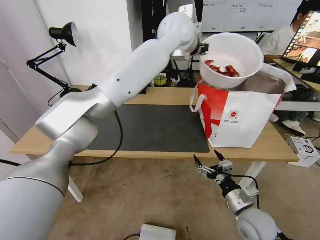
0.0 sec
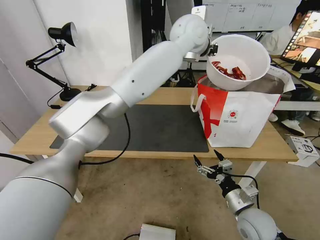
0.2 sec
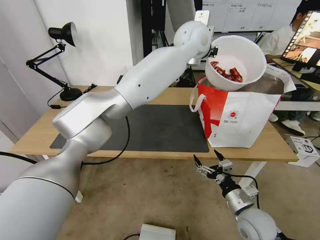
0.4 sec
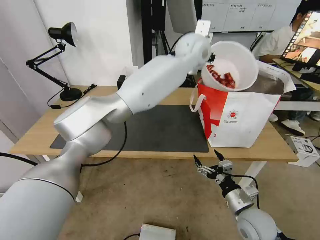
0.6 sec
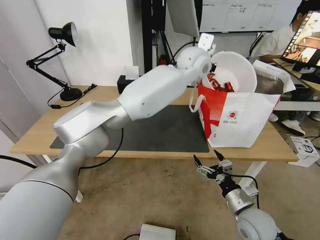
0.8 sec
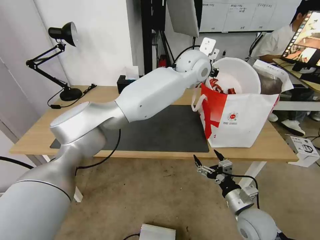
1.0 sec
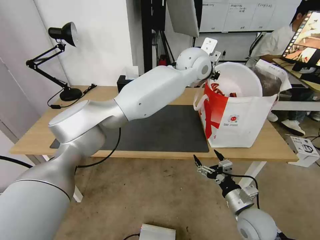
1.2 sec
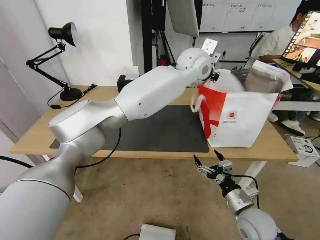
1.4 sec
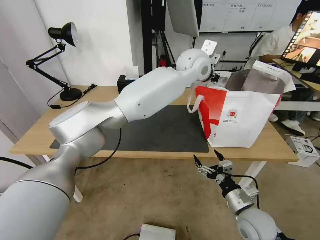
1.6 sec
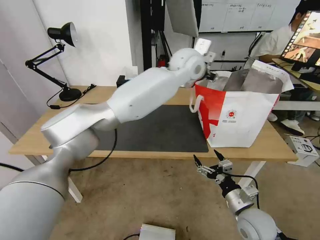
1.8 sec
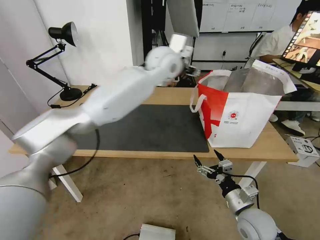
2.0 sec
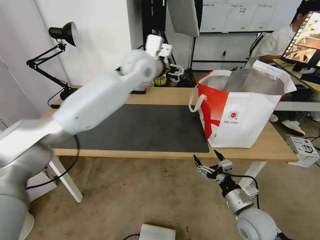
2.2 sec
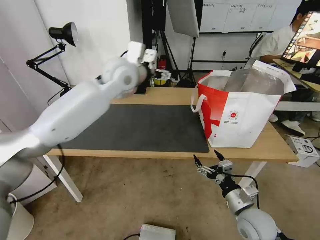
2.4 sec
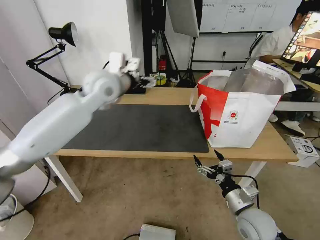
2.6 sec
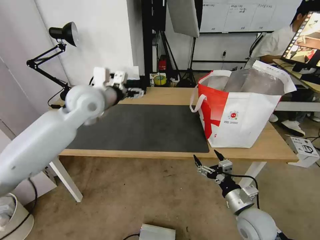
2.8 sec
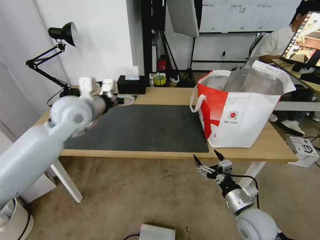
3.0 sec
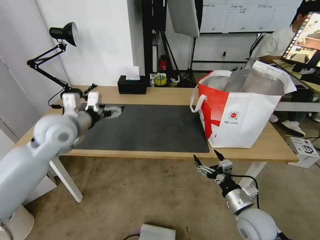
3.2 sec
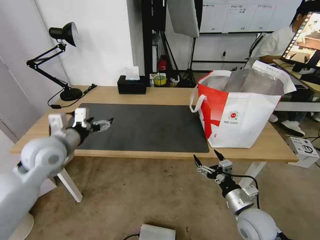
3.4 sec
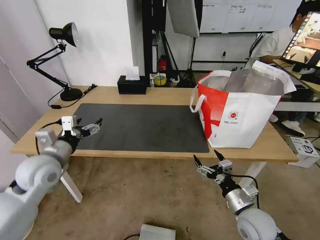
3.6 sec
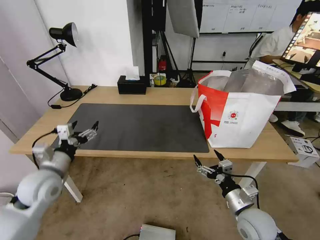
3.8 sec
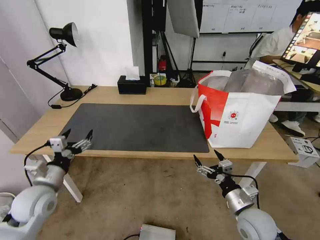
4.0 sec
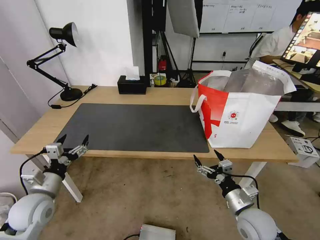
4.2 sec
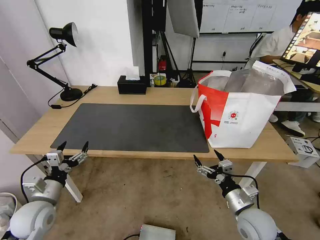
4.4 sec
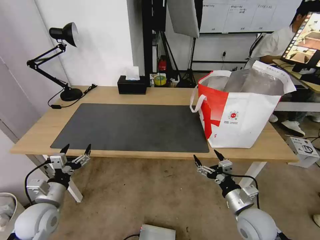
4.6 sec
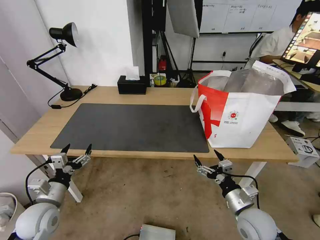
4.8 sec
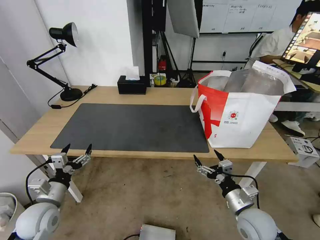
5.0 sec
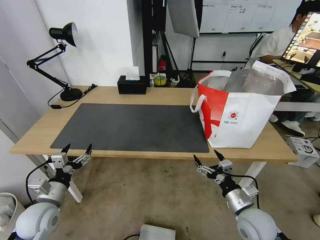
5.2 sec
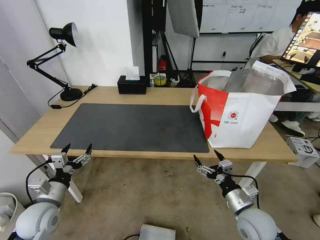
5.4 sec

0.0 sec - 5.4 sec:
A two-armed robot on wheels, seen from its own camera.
Task of the whole recording: Pick up the trash from the table and place it into the takeout bag.
0.0 sec - 1.4 sec: The left gripper shifts about 10 cm downward.
1.4 sec - 2.8 sec: The left gripper shifts about 25 cm to the left, and opens its fingers.
2.8 sec - 4.0 sec: The left gripper is displaced downward, backward and to the left by roughly 35 cm.
4.0 sec - 5.4 sec: The left gripper moves downward, some 5 cm.

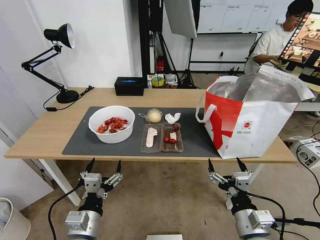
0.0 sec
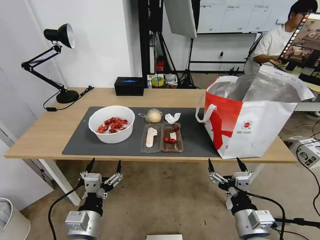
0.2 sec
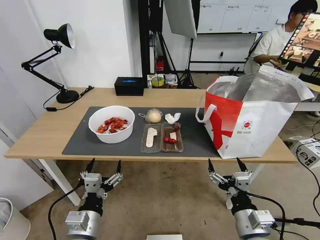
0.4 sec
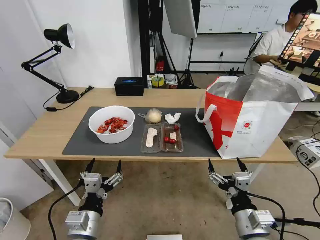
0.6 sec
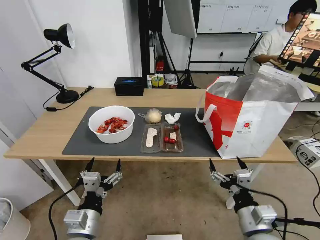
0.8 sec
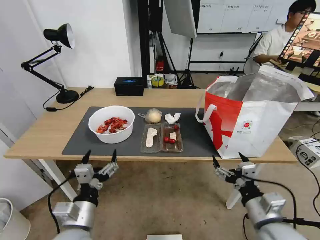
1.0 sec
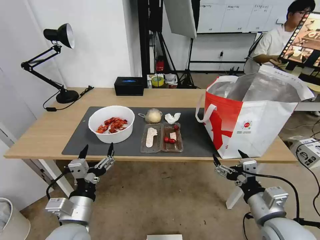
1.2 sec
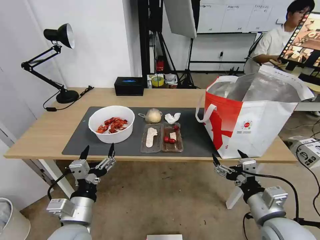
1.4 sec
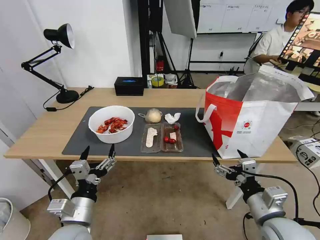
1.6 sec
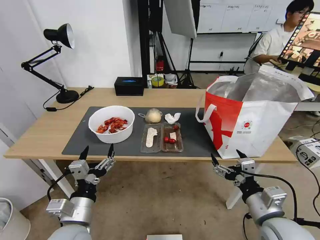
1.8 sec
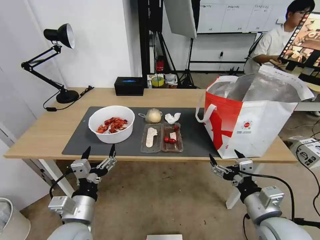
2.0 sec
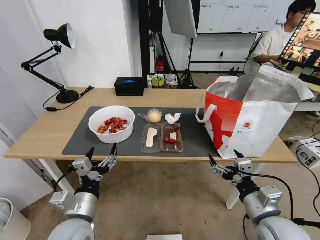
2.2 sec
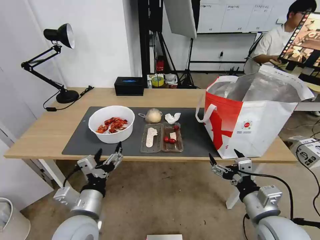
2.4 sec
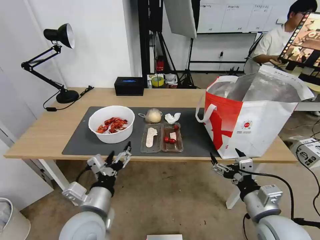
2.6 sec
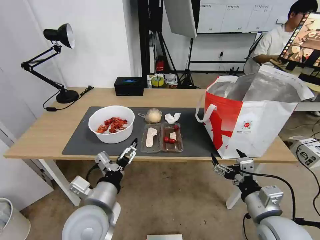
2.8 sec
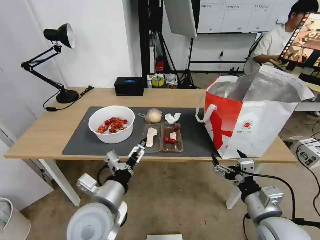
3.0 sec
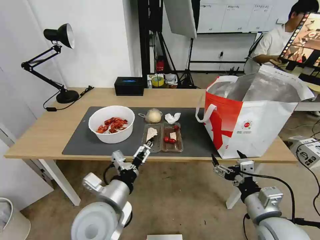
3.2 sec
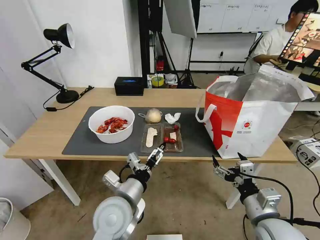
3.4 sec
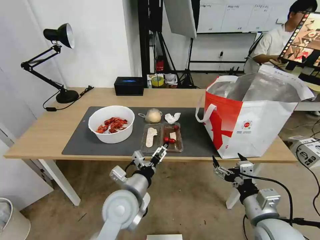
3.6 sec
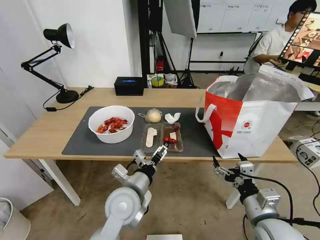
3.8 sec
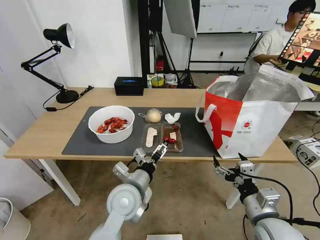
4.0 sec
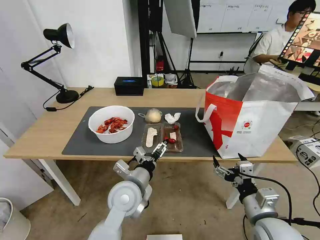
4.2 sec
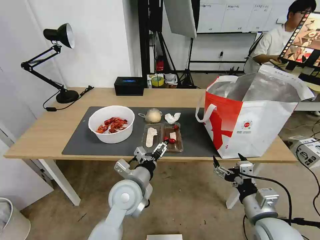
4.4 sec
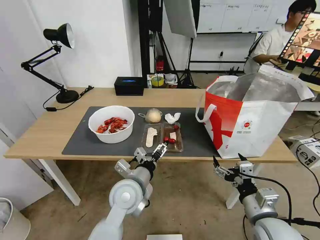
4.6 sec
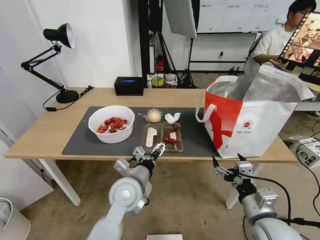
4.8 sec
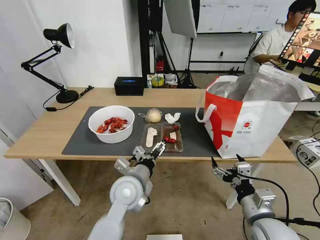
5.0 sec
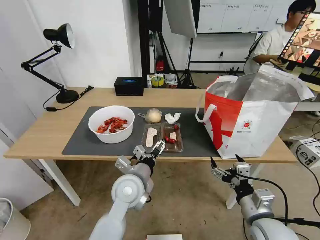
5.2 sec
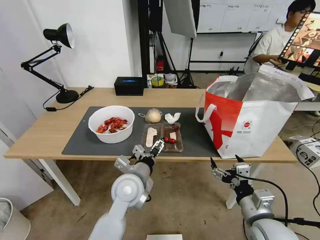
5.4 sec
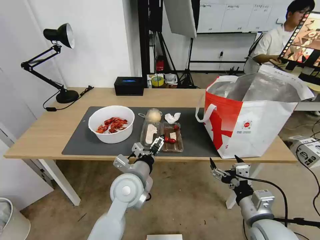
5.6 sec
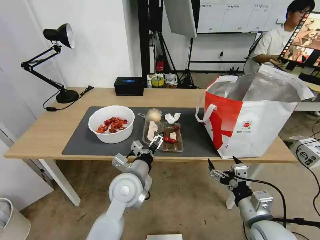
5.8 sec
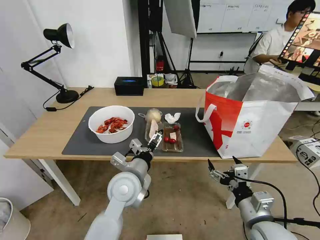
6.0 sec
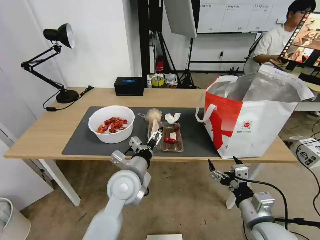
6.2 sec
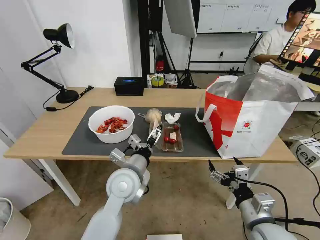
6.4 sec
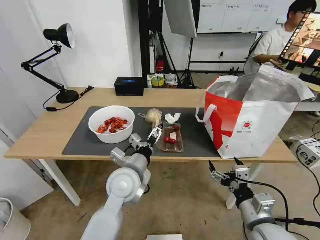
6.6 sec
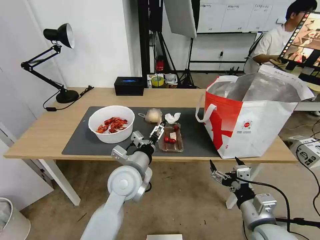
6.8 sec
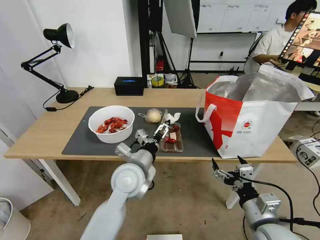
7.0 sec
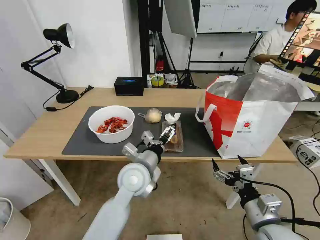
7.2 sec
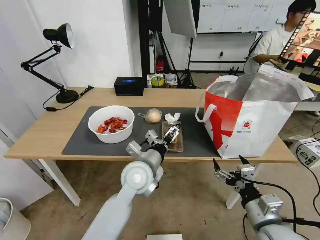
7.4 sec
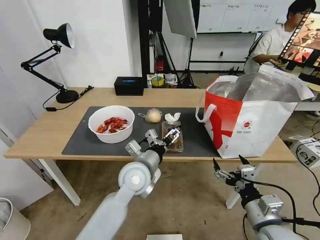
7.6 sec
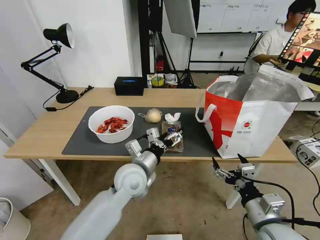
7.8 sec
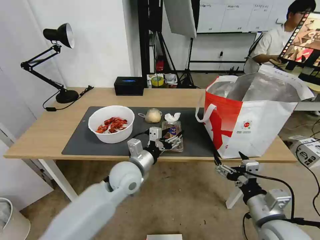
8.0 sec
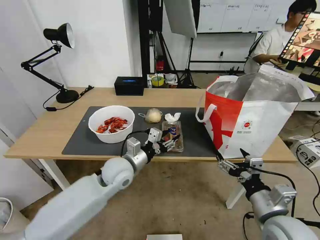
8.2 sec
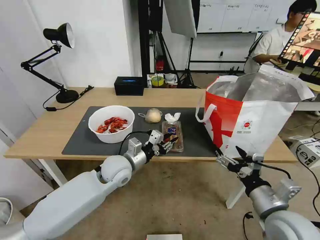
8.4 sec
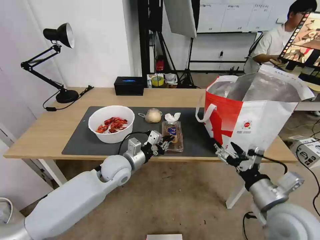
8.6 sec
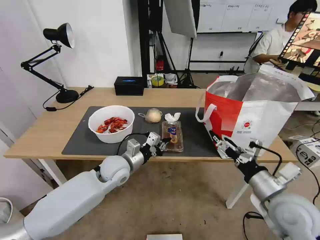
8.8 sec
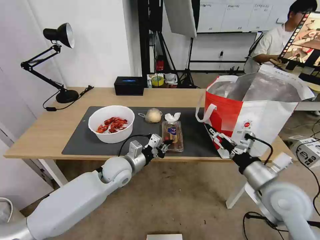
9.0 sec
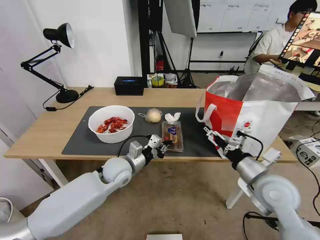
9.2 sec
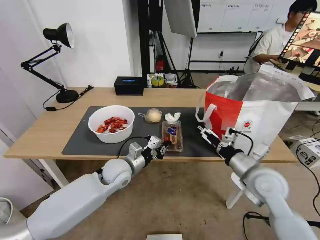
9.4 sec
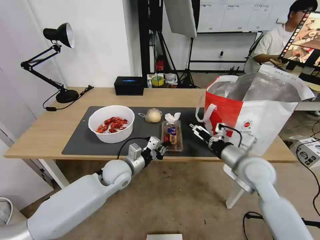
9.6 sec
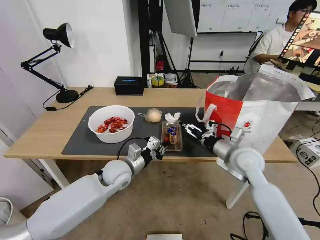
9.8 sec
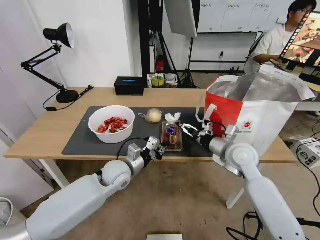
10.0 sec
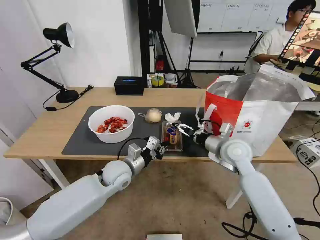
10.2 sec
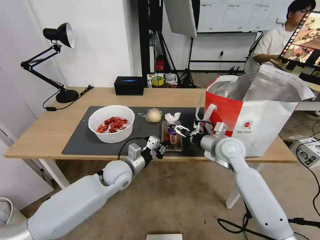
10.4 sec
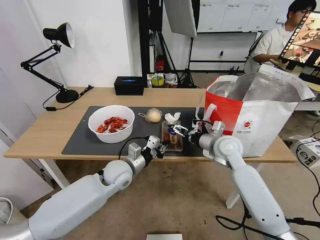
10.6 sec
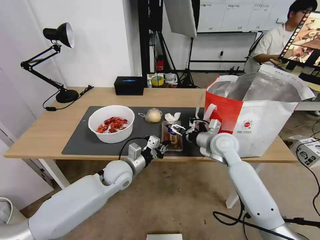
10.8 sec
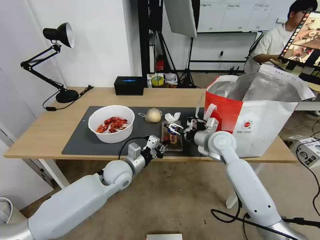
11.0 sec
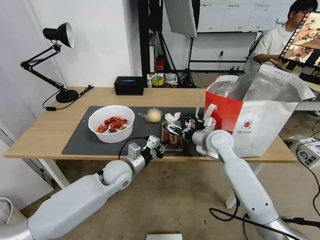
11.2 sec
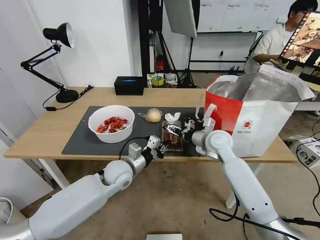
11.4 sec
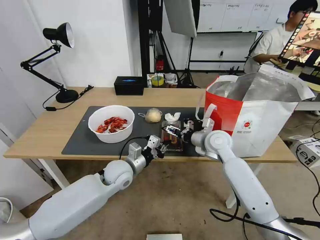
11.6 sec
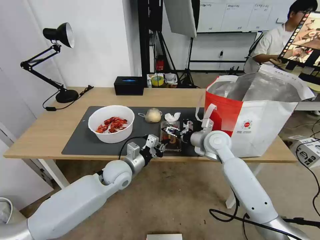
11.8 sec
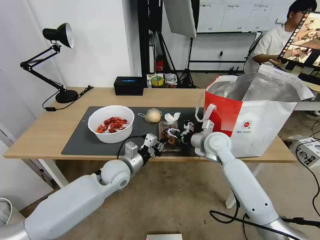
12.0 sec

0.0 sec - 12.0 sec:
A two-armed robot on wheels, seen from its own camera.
Task of the whole recording: Pick up the trash from the table and place it into the takeout bag.
1.6 sec - 3.0 sec: The left gripper moves to the right and upward, roughly 10 cm.
3.0 sec - 4.4 sec: The left gripper shifts approximately 10 cm forward and to the right.
4.4 sec - 6.0 sec: There are only small adjustments of the grippers.
6.0 sec - 7.6 sec: The grippers stay close to where they were, moving slightly.
7.6 sec - 9.0 sec: The left gripper is displaced to the left by approximately 5 cm, and closes up; the right gripper moves forward and upward, roughly 10 cm.
9.0 sec - 10.4 sec: The right gripper goes roughly 20 cm forward and to the left.
10.4 sec - 12.0 sec: The right gripper closes its fingers.

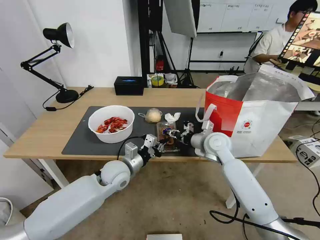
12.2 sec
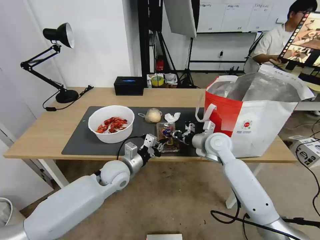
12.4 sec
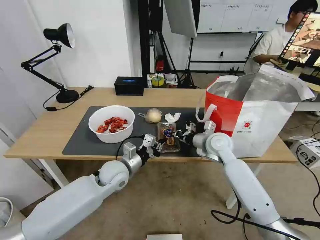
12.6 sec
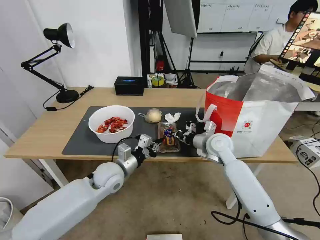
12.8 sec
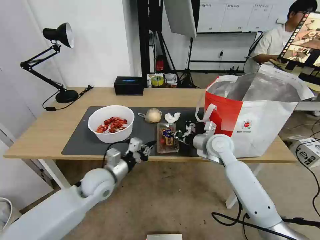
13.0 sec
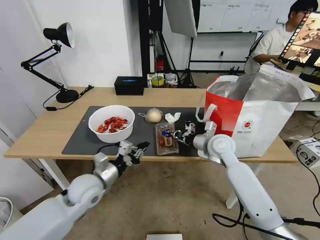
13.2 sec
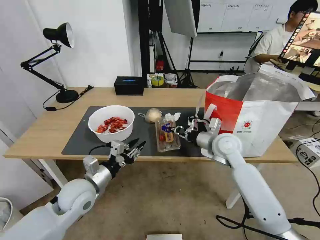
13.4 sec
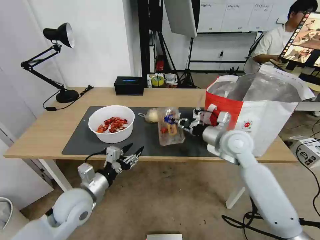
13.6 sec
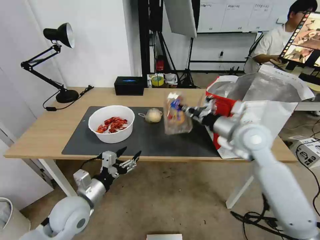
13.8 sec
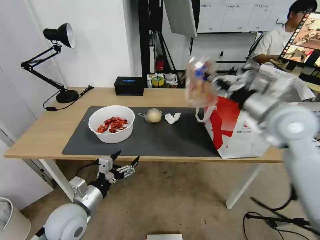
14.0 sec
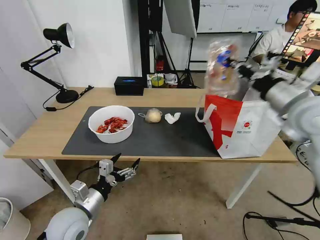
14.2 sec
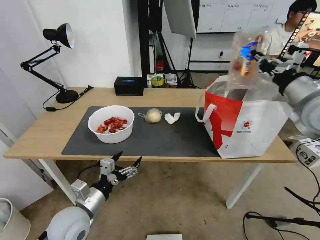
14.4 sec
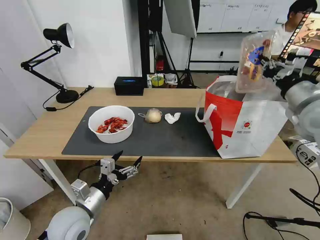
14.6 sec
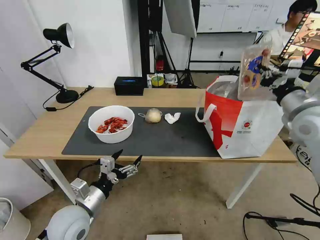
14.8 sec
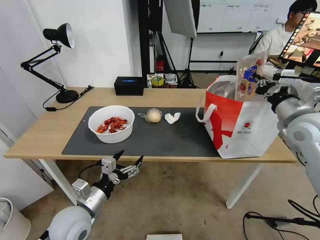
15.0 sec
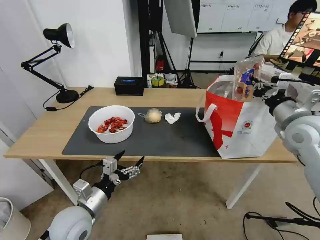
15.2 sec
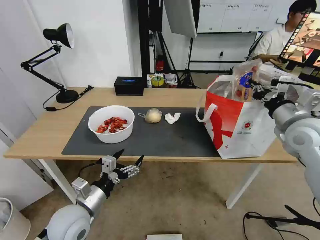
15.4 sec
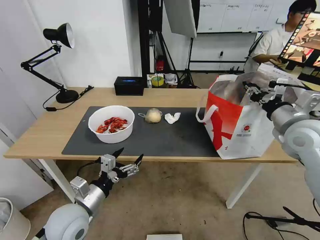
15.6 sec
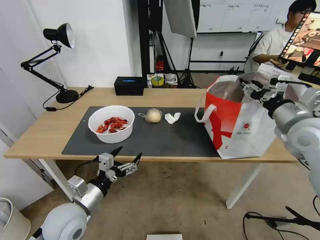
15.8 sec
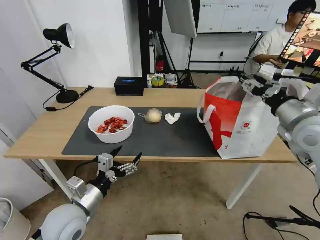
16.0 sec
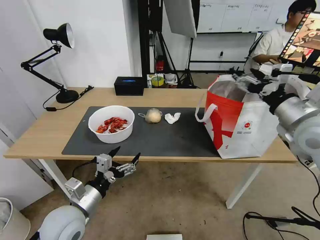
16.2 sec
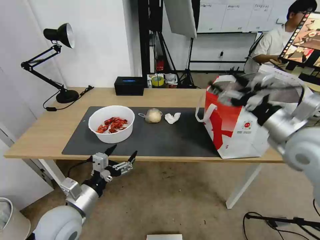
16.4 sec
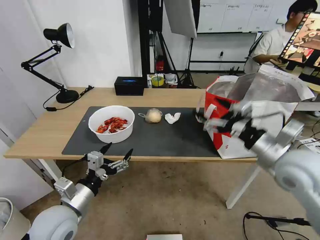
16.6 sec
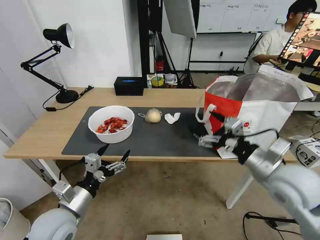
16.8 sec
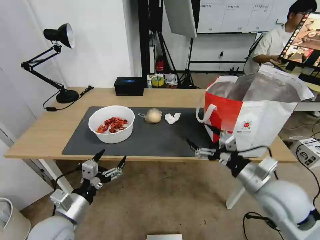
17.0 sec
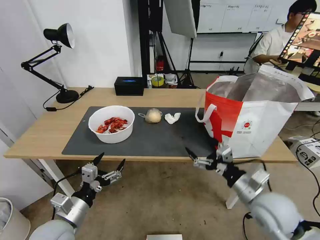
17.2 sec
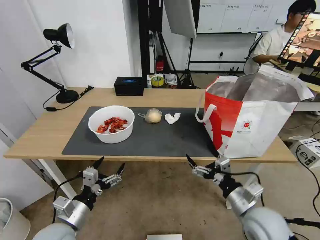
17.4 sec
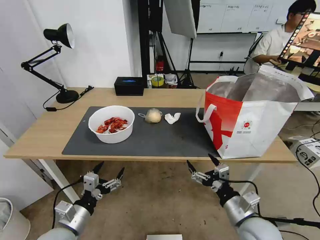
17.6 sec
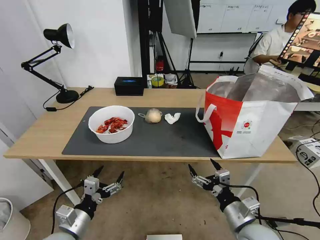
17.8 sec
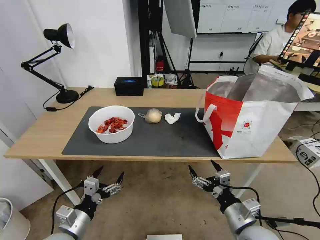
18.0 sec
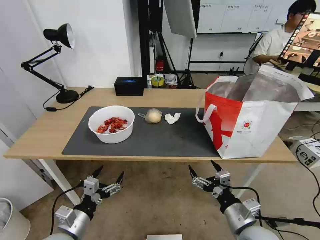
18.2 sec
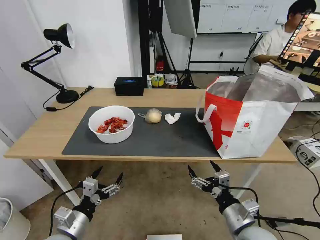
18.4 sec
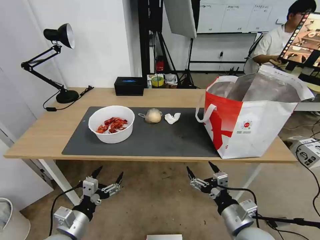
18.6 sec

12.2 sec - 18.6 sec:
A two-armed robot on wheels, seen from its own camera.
Task of the whole recording: Pick up the trash from the table and place it into the takeout bag.
12.2 sec - 13.8 sec: The right gripper is displaced upward, backward and to the right by roughly 15 cm, and closes up, while the left gripper goes some 15 cm backward and to the left, and opens its fingers.
13.8 sec - 15.4 sec: The right gripper moves to the right, some 10 cm.
15.4 sec - 17.0 sec: The right gripper is displaced backward, downward and to the left by about 20 cm, and opens up.
17.0 sec - 18.6 sec: The left gripper shifts by some 5 cm; the right gripper goes some 15 cm downward, backward and to the left.
